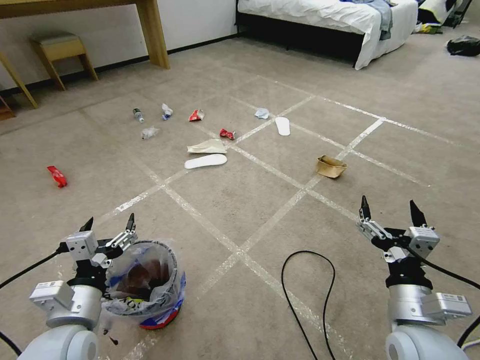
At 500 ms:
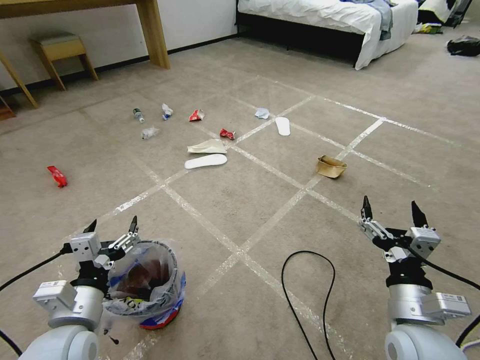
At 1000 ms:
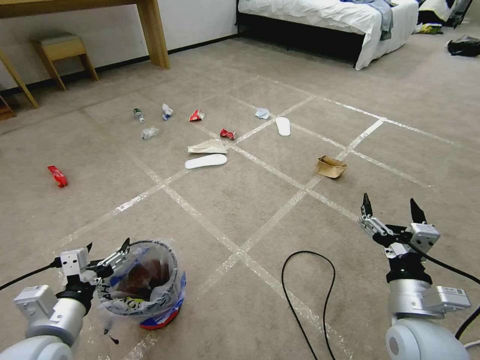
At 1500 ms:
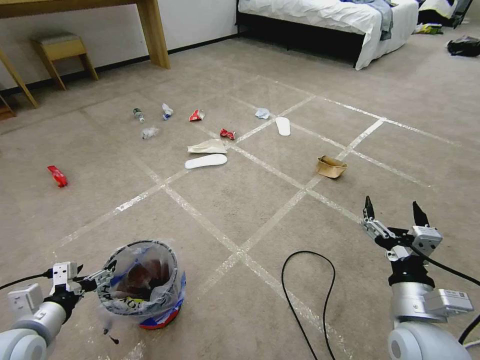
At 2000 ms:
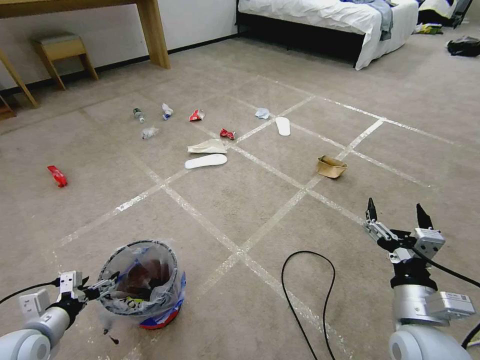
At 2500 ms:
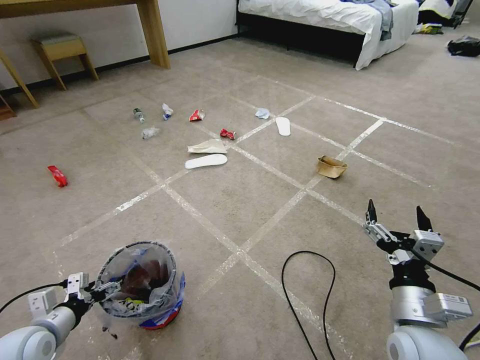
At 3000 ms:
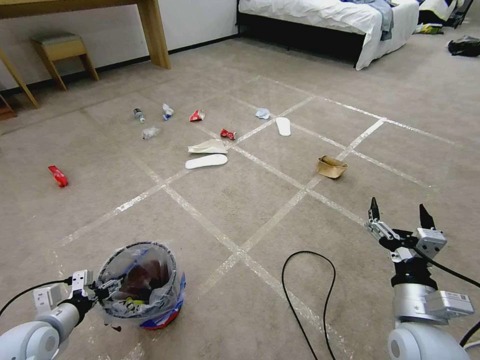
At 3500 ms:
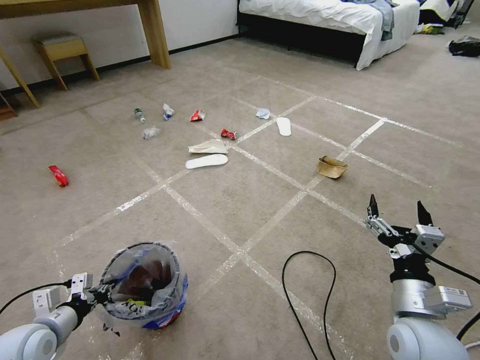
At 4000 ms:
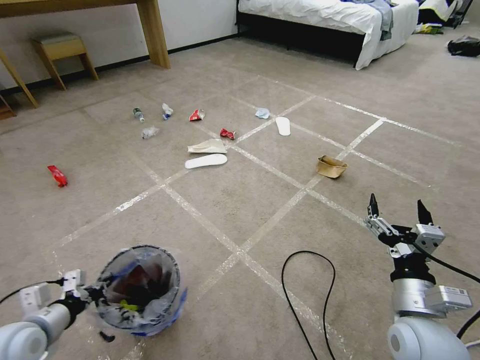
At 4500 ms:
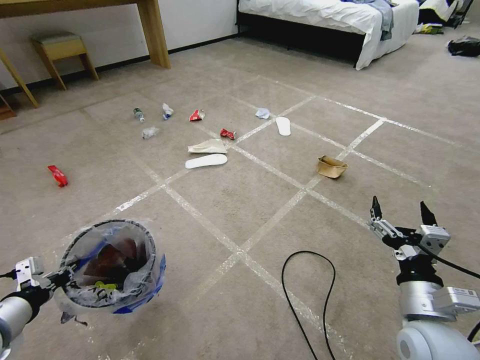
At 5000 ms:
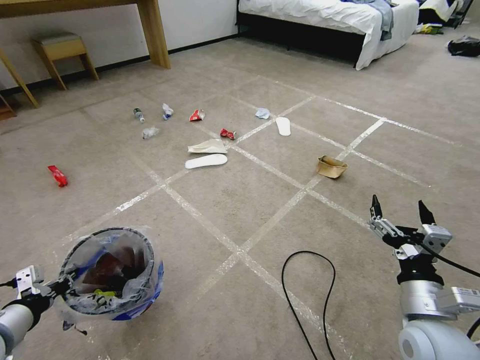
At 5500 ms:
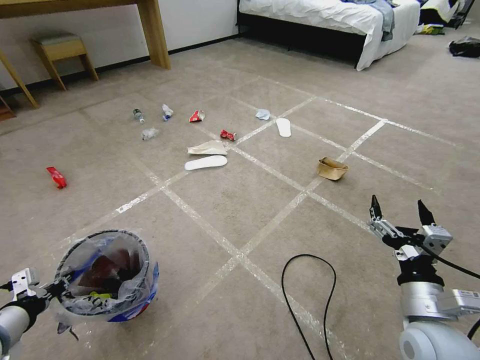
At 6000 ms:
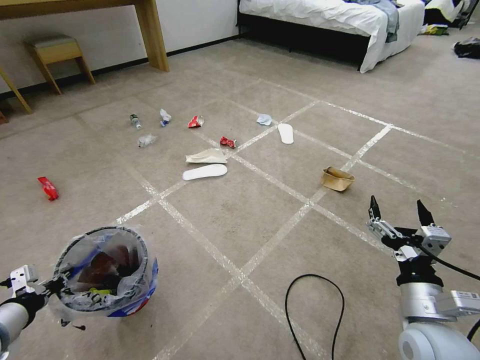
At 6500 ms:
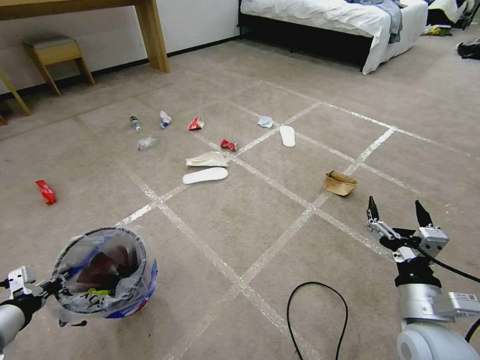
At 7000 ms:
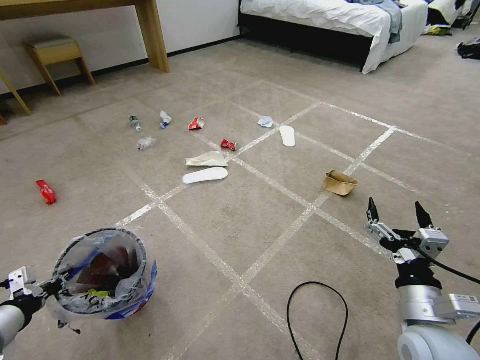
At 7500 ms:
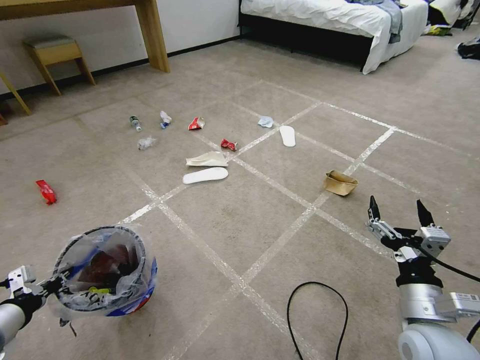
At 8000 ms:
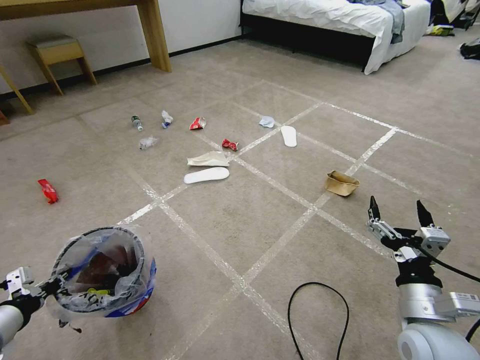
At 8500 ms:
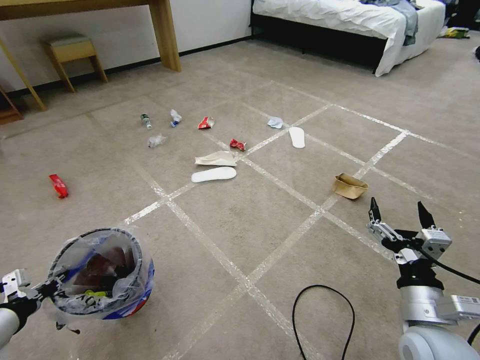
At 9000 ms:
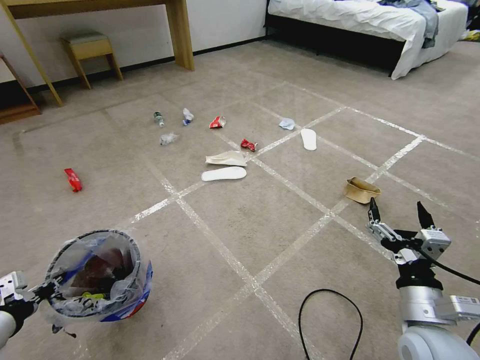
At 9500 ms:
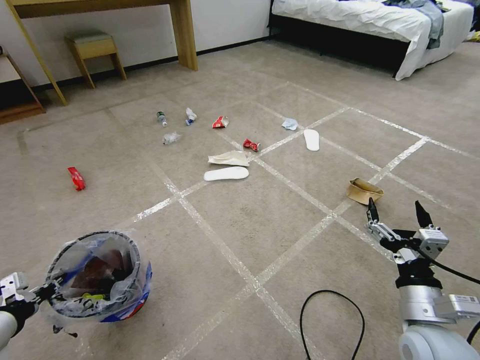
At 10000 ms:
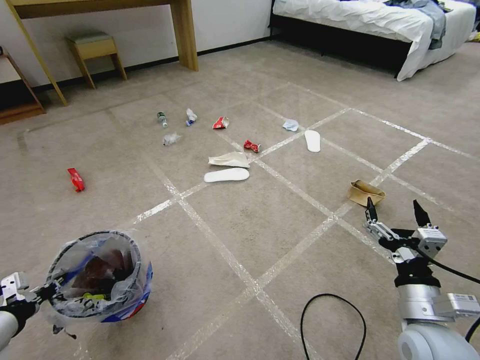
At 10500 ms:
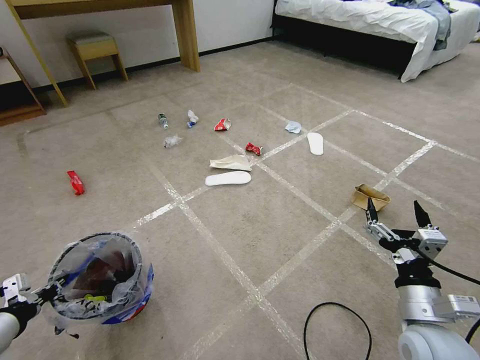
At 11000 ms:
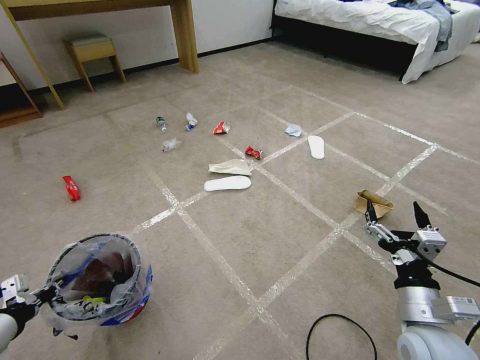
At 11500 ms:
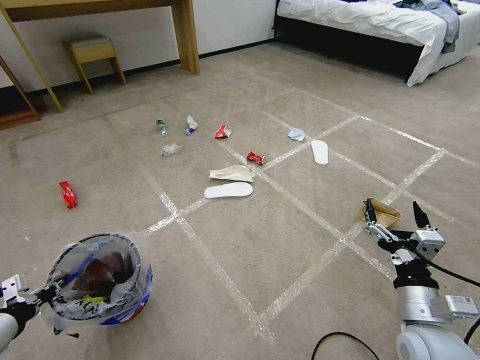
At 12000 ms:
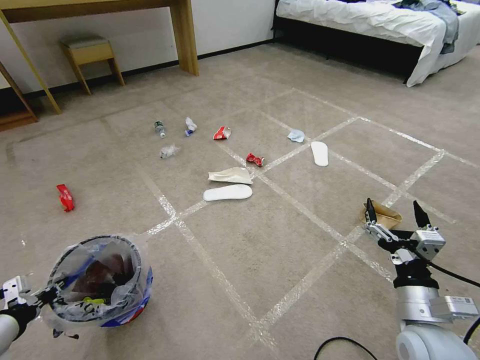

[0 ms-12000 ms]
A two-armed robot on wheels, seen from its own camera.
Task of the whole recording: Pick up the trash bin and place the garbage on the floor into it.
2000 ms to 4000 ms: The left gripper closes.
4000 ms to 6000 ms: The left gripper shifts by roughly 5 cm.
6000 ms to 8000 ms: The grippers make only small movements.
10000 ms to 12000 ms: The two grippers keep their place.

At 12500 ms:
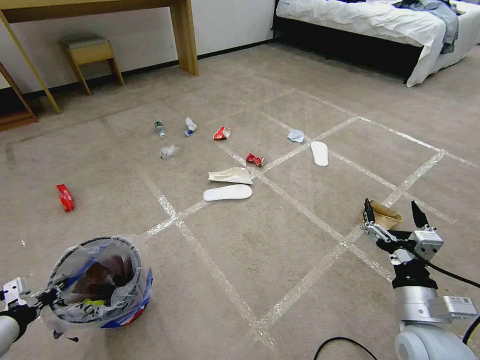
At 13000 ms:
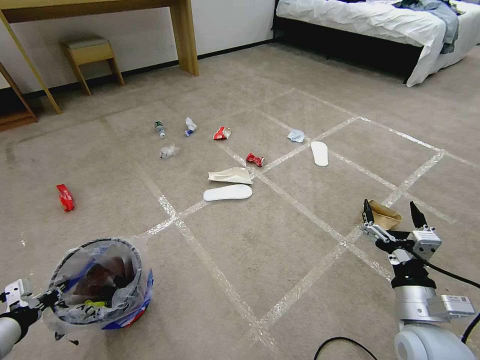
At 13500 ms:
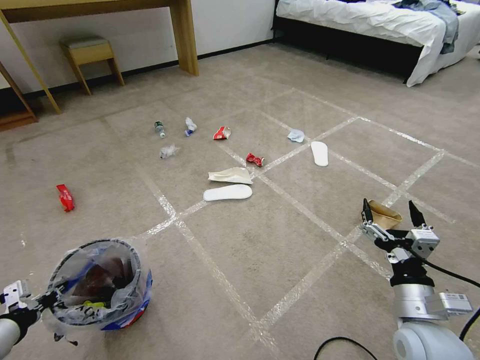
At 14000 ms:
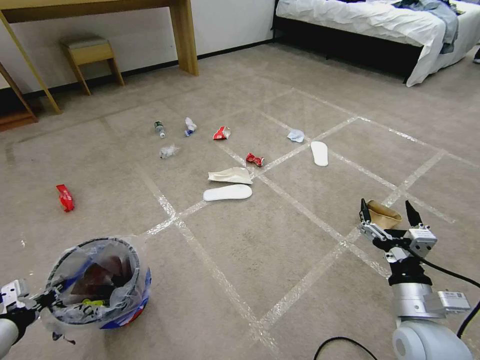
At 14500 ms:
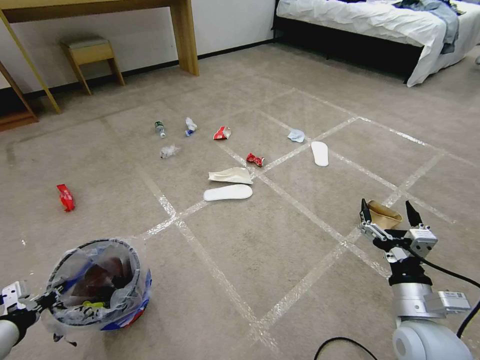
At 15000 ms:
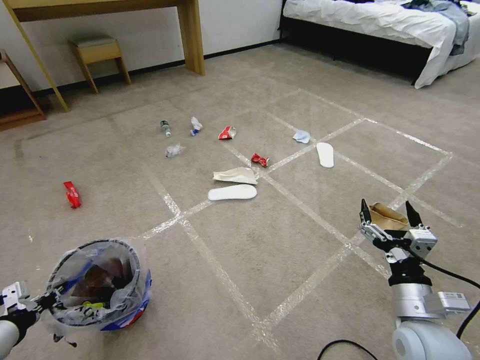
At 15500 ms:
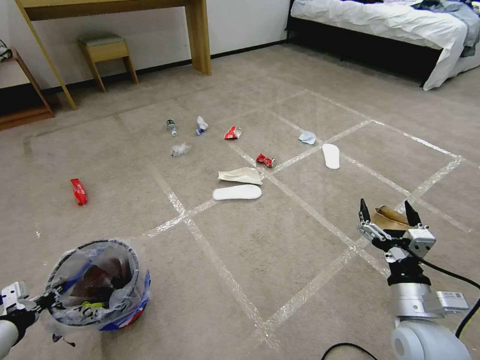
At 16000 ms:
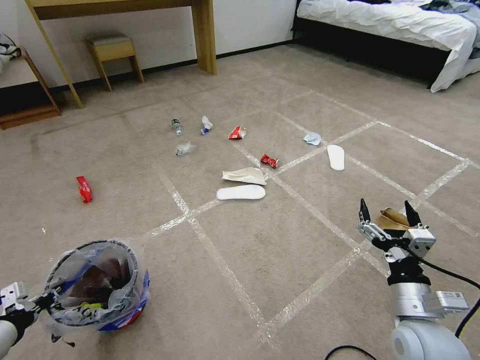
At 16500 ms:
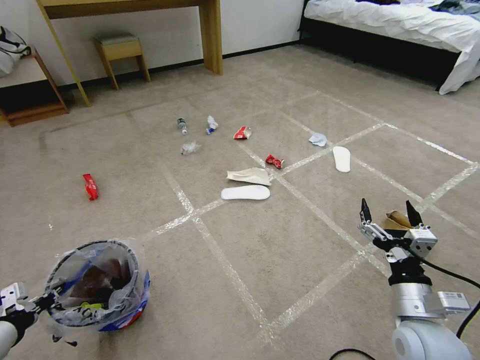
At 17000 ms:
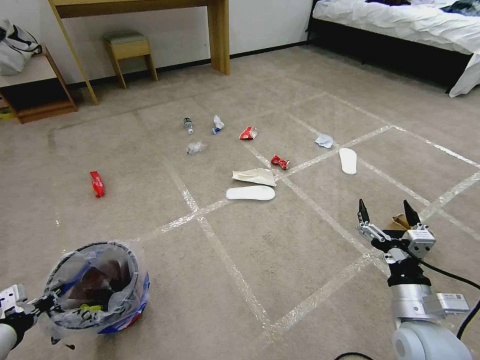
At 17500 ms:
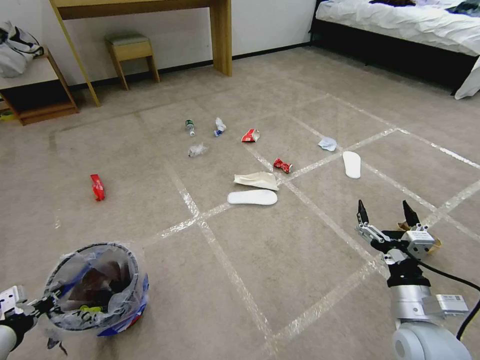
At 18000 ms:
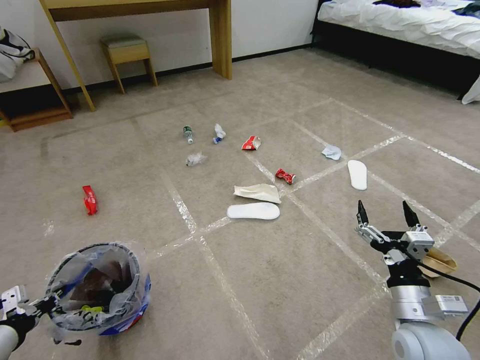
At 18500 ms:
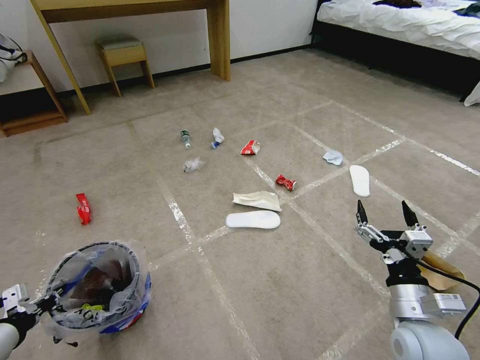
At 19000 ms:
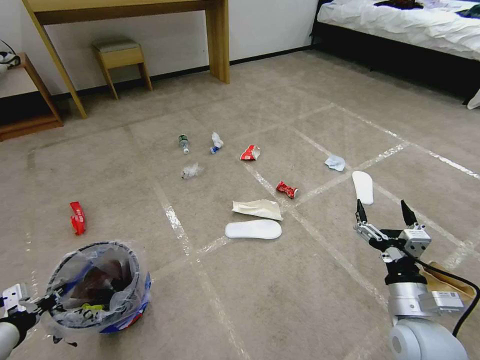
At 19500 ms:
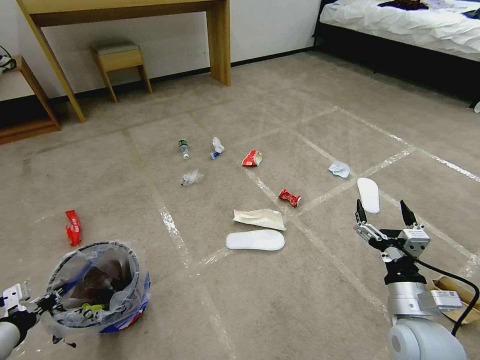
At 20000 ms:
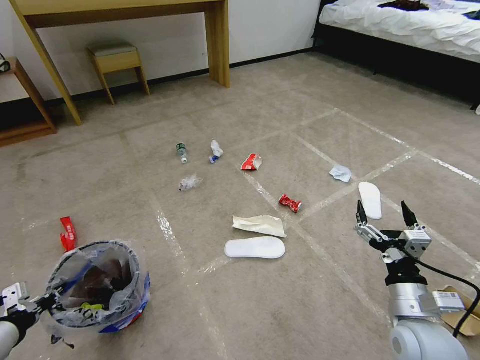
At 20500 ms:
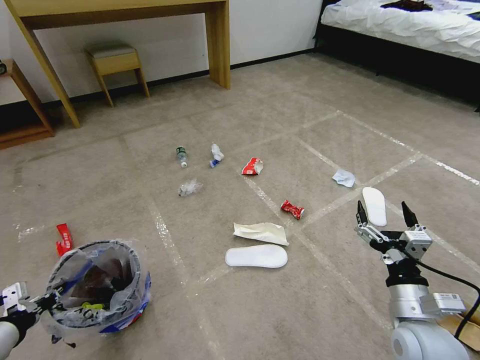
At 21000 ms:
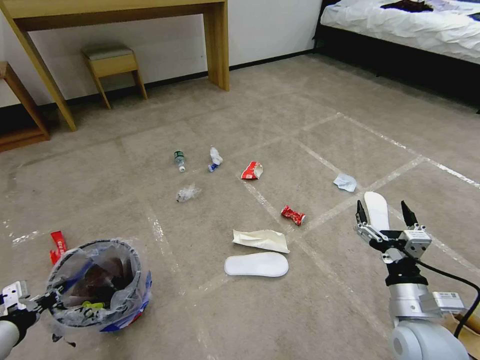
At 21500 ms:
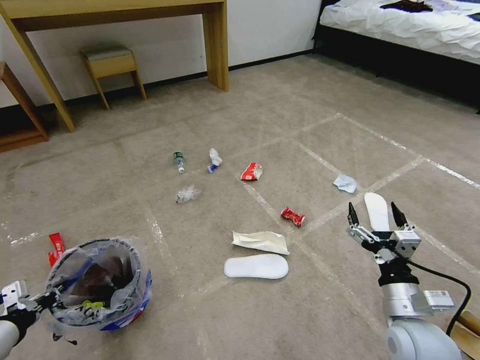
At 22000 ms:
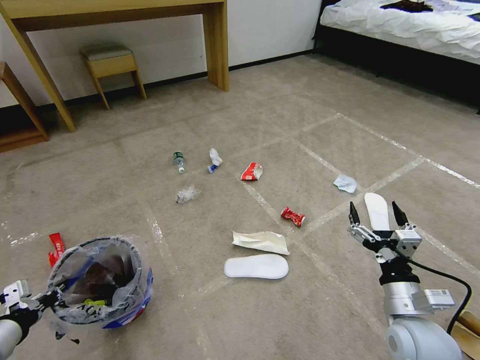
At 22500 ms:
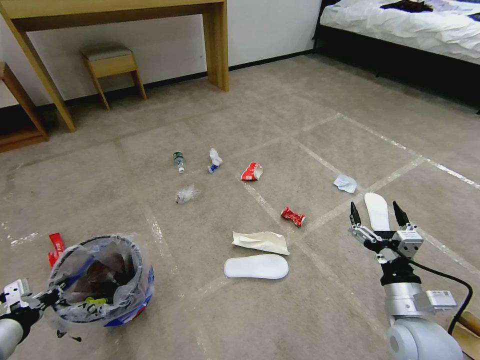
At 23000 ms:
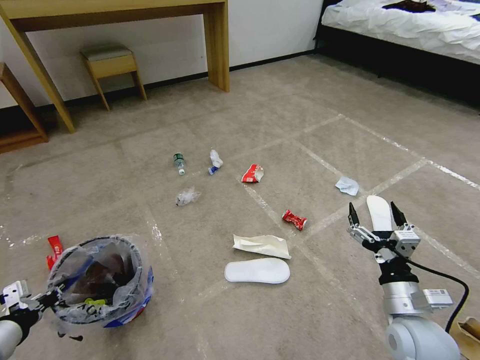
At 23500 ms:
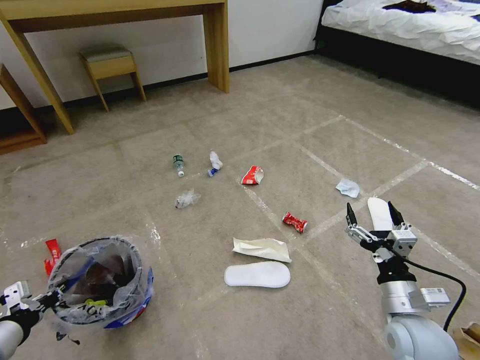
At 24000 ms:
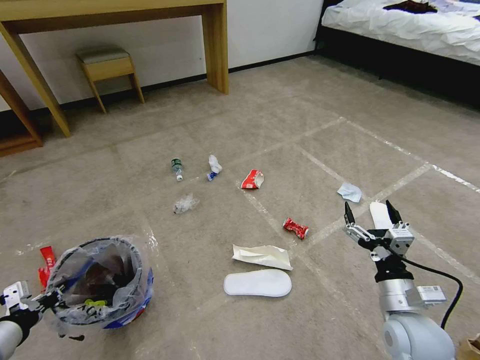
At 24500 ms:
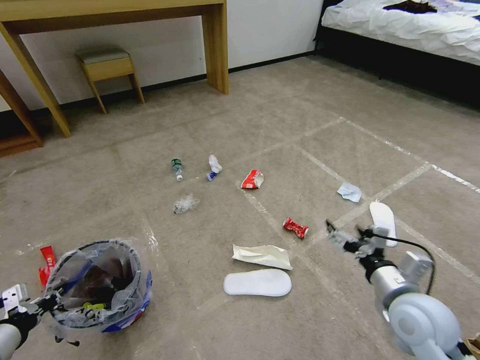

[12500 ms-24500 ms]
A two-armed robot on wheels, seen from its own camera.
Task of the whole recording: Pick up the trash bin and place the garbage on the floor into it.
12500 ms to 16500 ms: The two grippers keep their place.
18500 ms to 20500 ms: Both grippers stay put.
20500 ms to 22500 ms: The two grippers keep their place.

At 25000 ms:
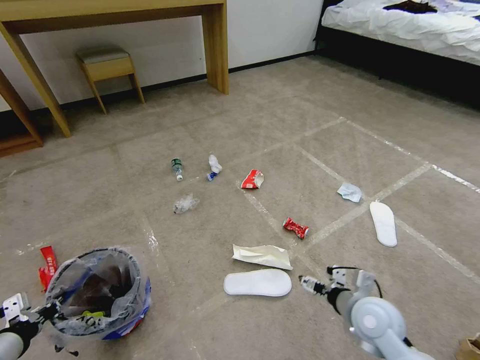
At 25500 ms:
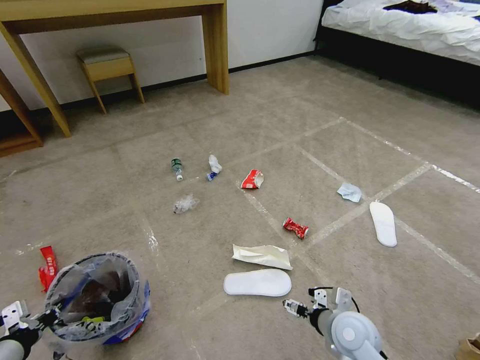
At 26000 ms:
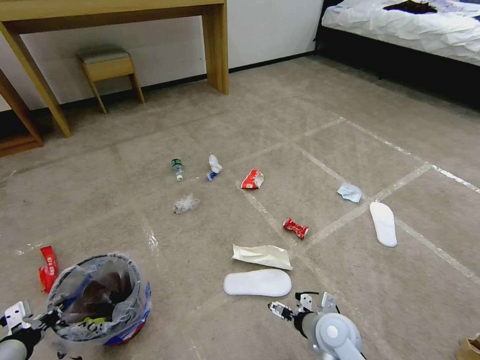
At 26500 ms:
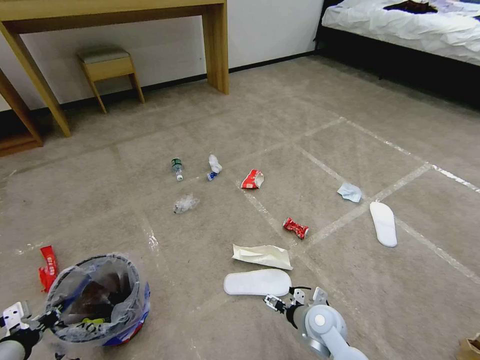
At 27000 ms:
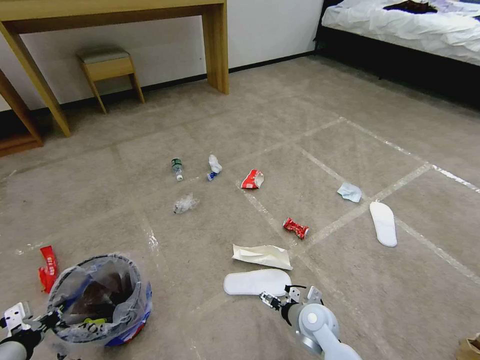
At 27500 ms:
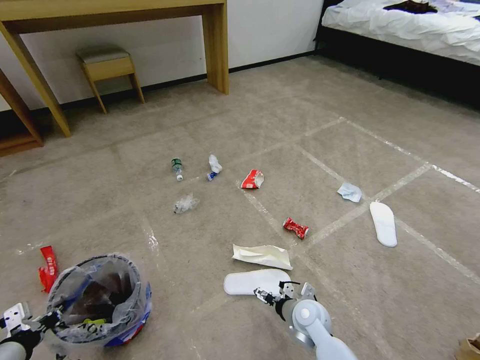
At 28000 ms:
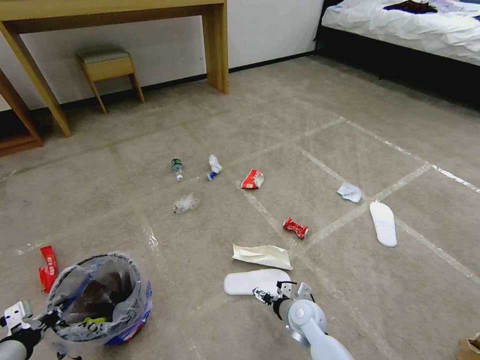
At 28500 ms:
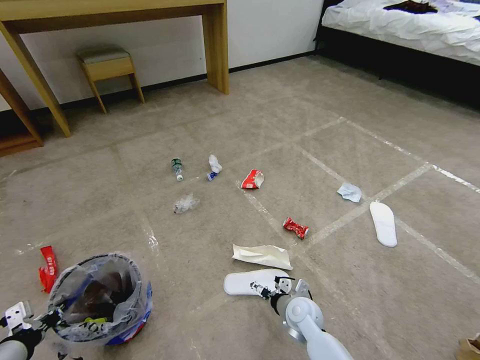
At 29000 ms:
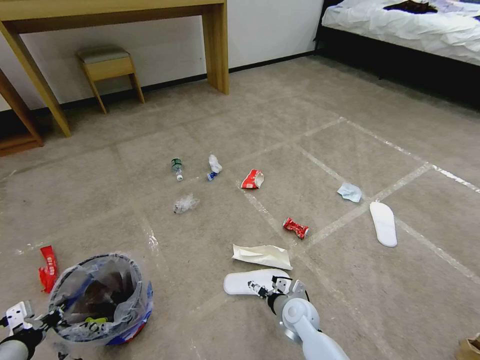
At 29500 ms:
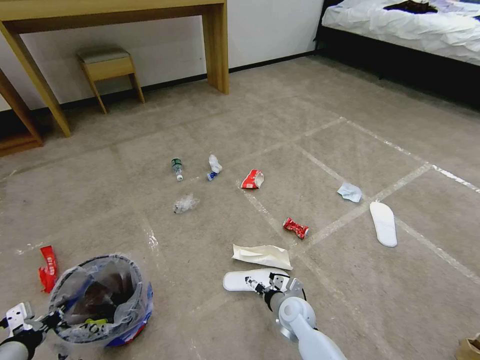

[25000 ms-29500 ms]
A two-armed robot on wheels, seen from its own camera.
Task of the whole recording: Pick up the trash bin and place the garbage on the floor into it.
25000 ms to 27000 ms: The right gripper heads downward and to the left, covering approximately 15 cm.
27000 ms to 29500 ms: The right gripper changes place by about 5 cm.
